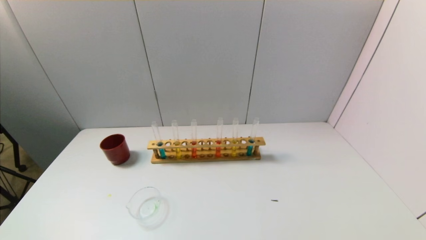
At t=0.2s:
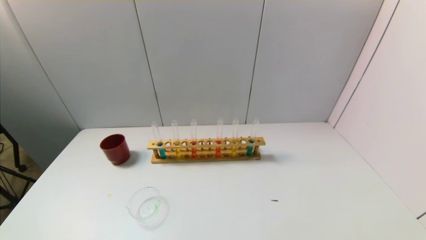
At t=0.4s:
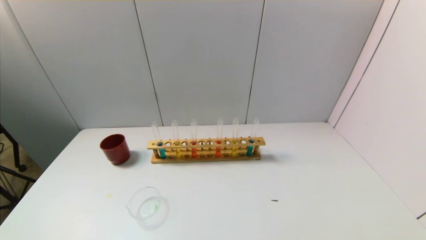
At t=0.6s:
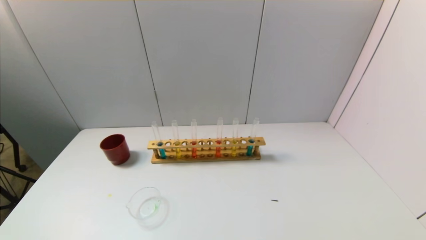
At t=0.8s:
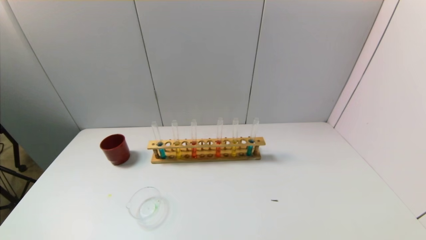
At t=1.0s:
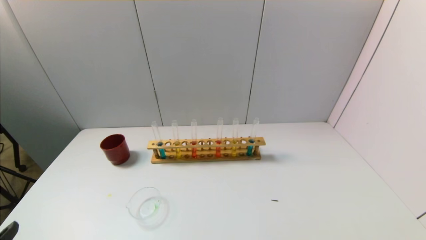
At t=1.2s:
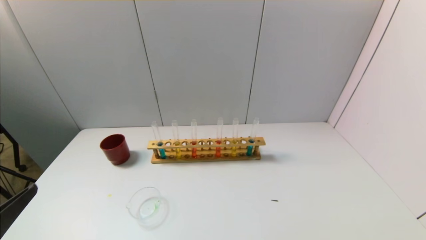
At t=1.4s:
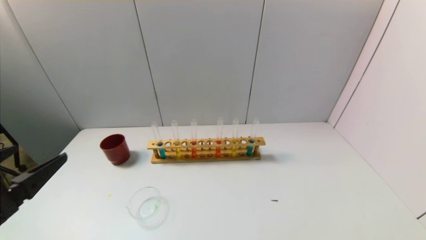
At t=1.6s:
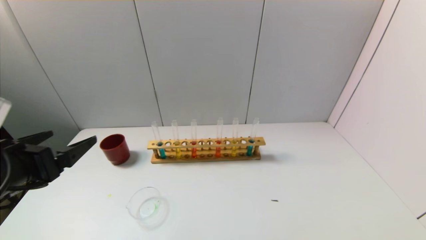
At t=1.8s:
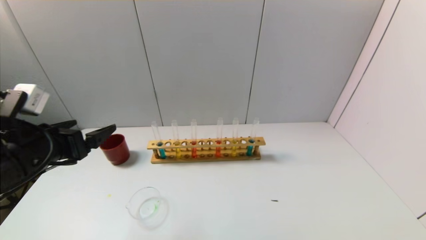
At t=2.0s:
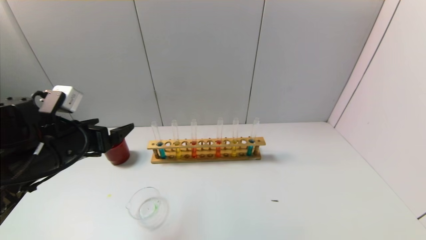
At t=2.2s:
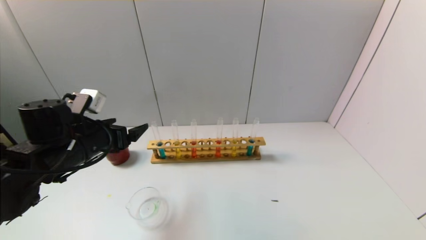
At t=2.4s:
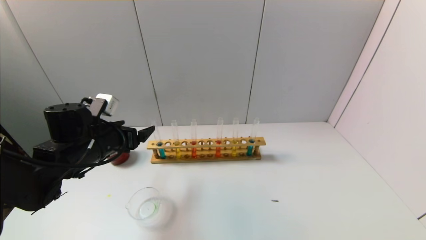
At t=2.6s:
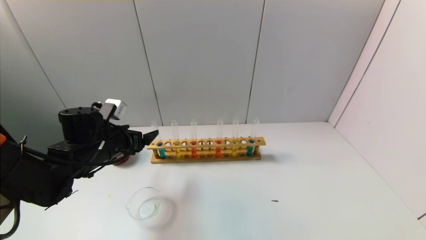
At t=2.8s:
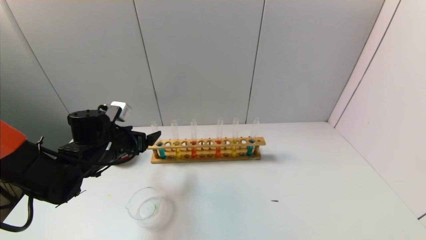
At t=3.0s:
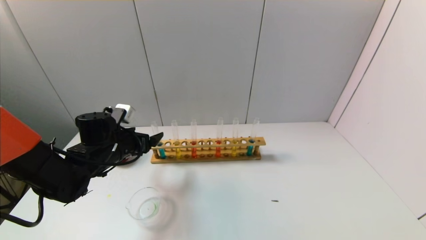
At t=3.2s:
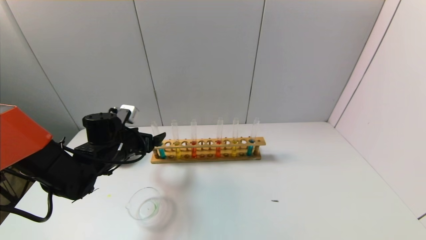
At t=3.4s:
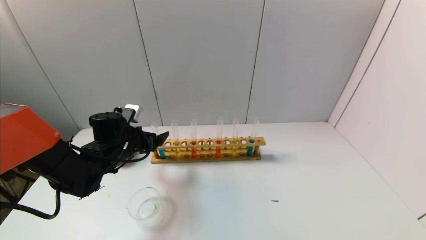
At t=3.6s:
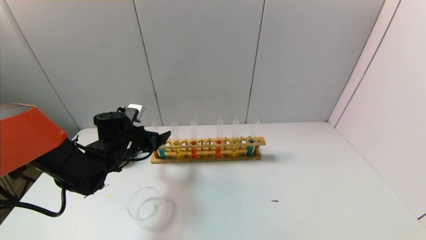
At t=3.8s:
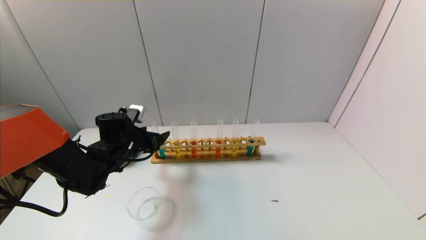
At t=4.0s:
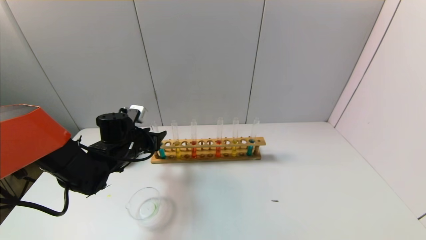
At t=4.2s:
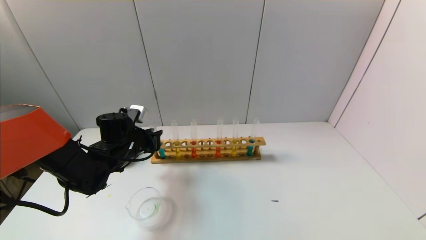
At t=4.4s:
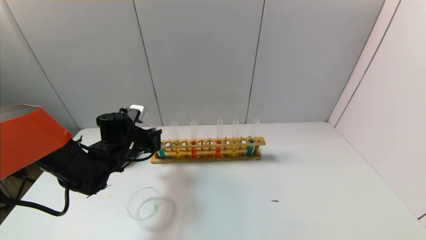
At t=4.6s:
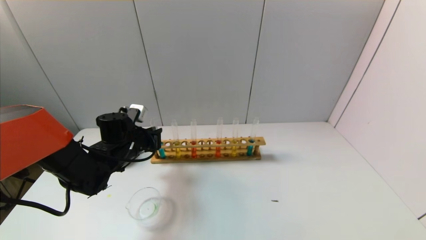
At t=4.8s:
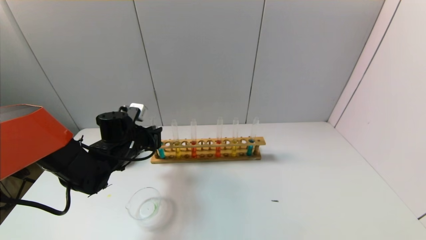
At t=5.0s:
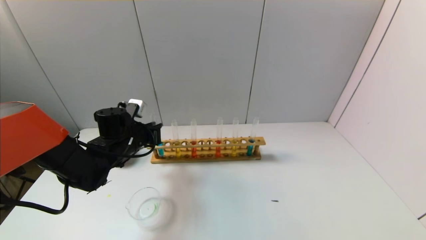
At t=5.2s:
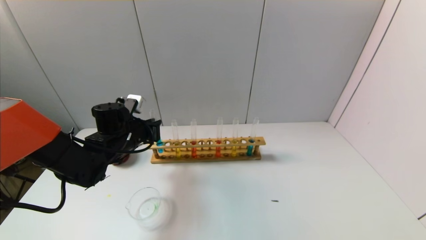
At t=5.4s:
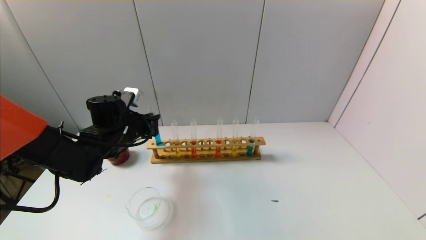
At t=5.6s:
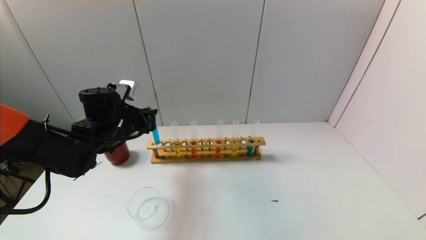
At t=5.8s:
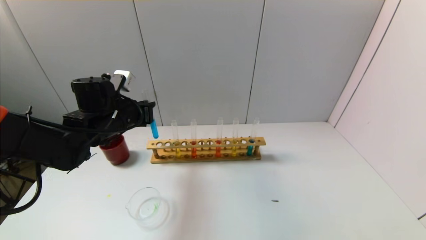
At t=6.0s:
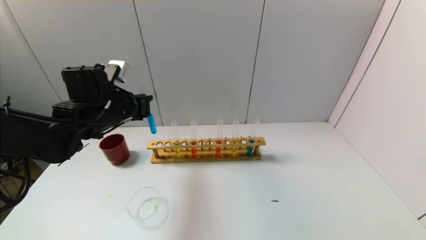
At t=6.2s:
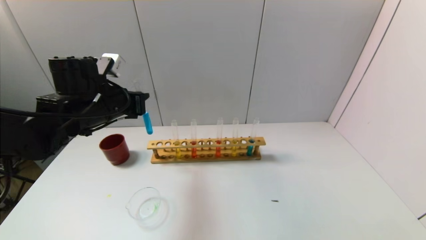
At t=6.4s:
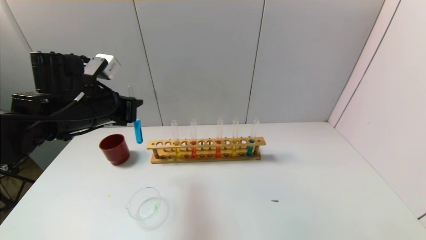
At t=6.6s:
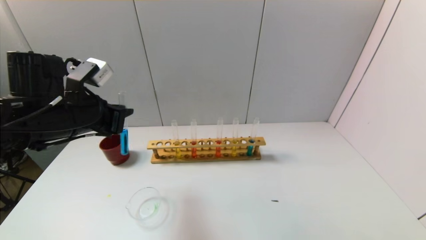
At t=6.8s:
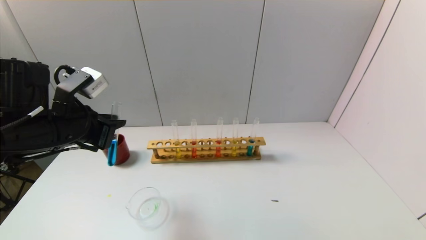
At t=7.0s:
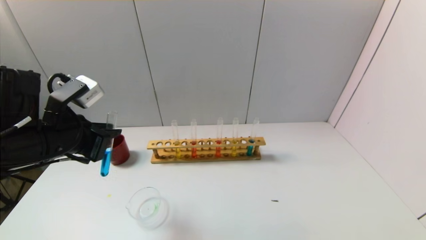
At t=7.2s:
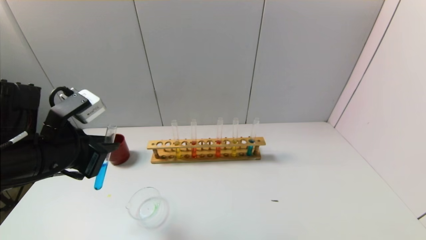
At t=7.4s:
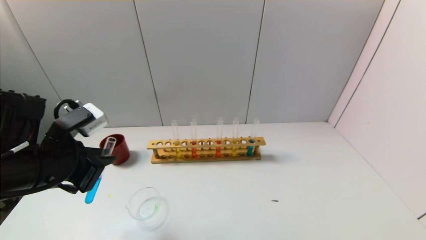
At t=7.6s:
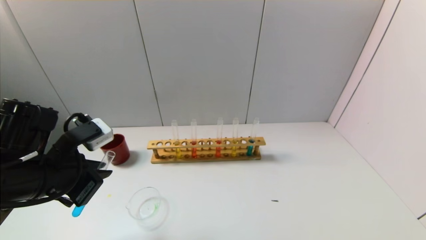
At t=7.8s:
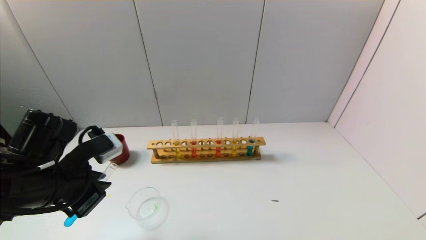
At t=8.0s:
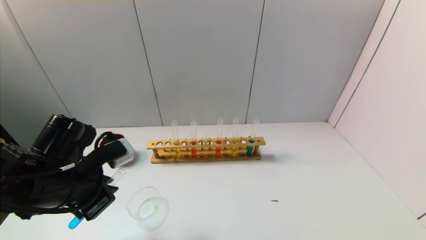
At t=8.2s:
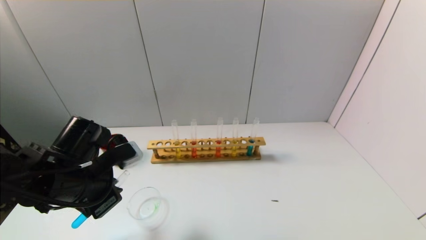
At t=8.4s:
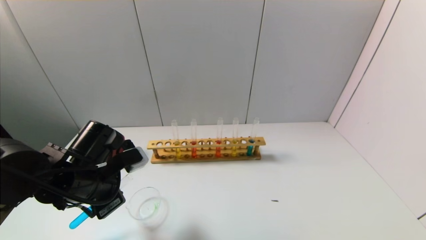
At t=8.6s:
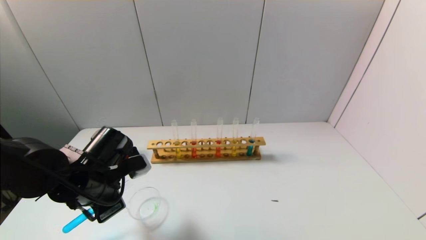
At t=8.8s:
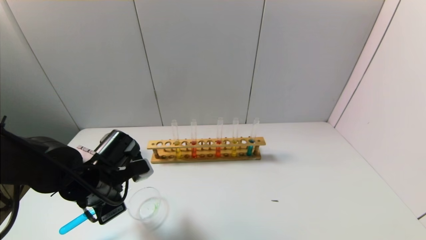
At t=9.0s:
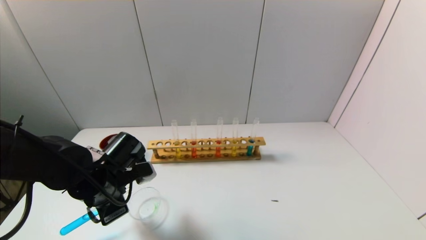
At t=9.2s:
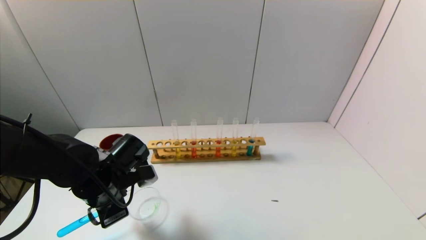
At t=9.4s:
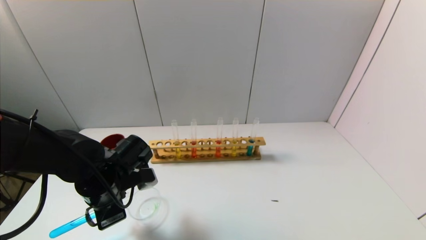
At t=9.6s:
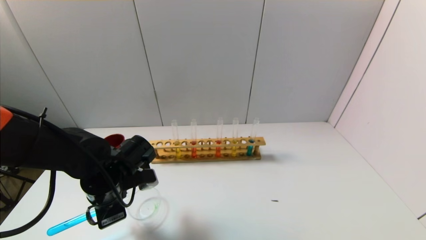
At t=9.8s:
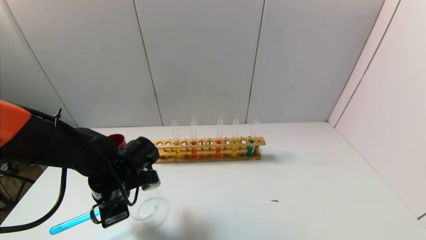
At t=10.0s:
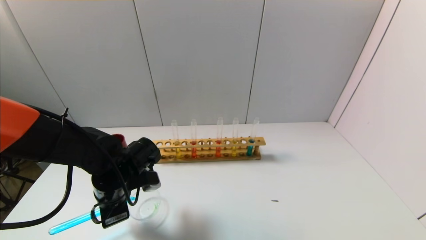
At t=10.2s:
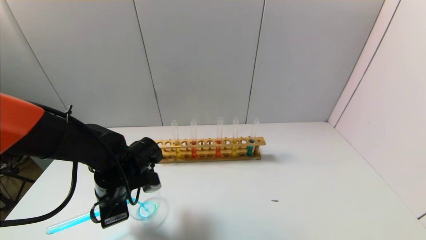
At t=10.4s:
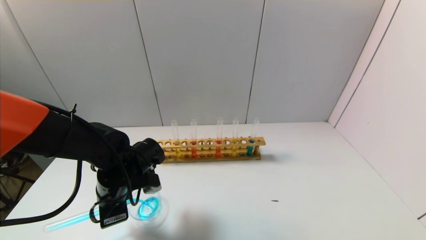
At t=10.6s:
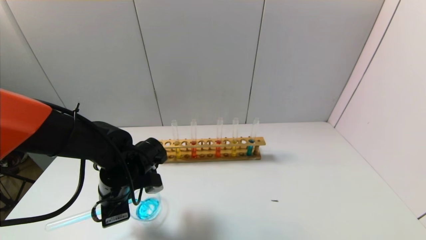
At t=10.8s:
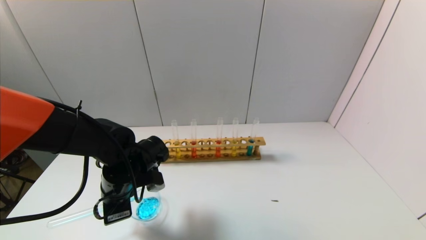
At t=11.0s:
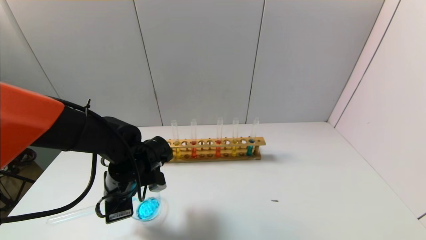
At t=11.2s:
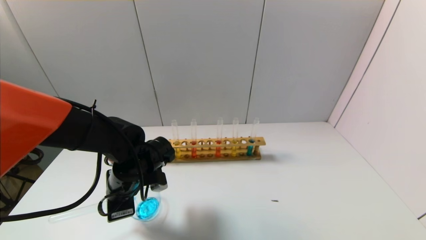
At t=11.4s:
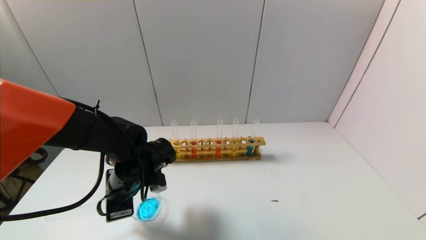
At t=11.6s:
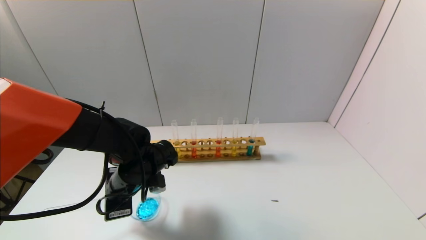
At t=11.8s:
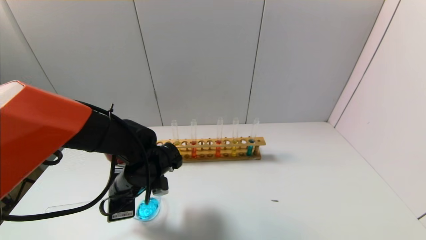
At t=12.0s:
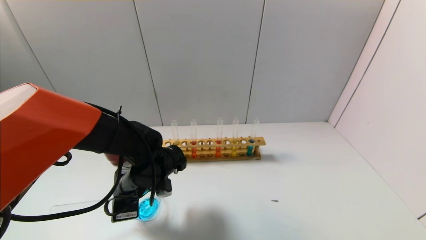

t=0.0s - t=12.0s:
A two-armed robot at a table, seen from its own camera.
Task of the whole recording: pick up the test tube with yellow pigment and the test tube with blue pigment by grippers and pour them into the beaker.
Step, t=0.0s - t=4.4s: Grasp the blue reagent with the left gripper.
t=0.0s - t=1.6s: The left gripper is displaced forward and upward by roughly 20 cm.
t=1.6s - t=3.0s: The left gripper moves forward and downward, approximately 20 cm.
t=3.0s - t=4.4s: The left gripper closes up.
t=4.4s - t=6.0s: The left gripper moves upward, approximately 10 cm.
t=6.0s - t=7.6s: The left gripper travels backward by about 15 cm.
t=7.6s - t=9.0s: The left gripper is displaced downward and forward by about 10 cm.
t=9.0s - t=10.4s: The grippers stay close to where they were, moving slightly.
t=10.4s - t=12.0s: The grippers stay close to where they were, moving slightly.

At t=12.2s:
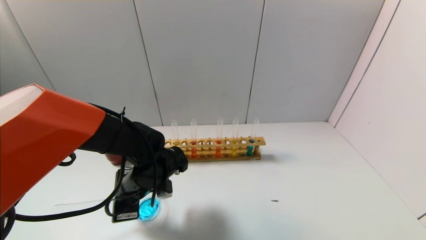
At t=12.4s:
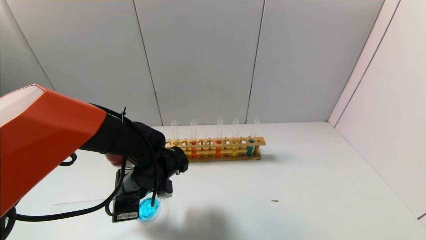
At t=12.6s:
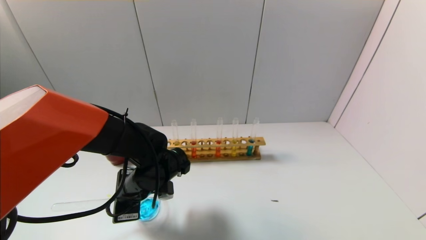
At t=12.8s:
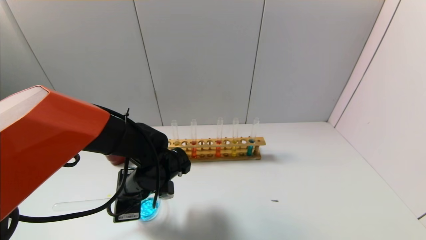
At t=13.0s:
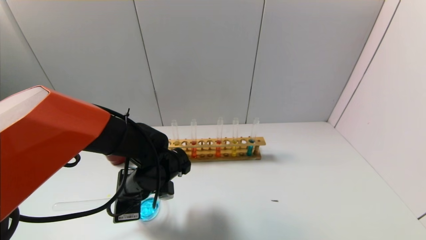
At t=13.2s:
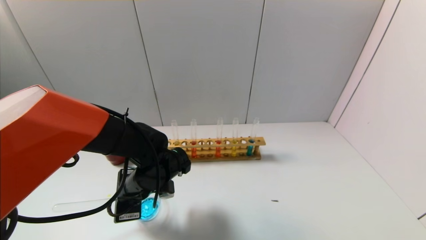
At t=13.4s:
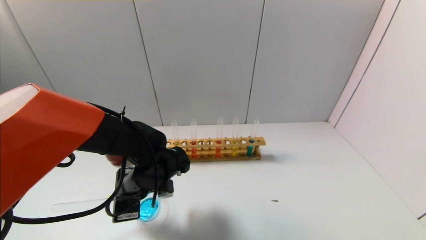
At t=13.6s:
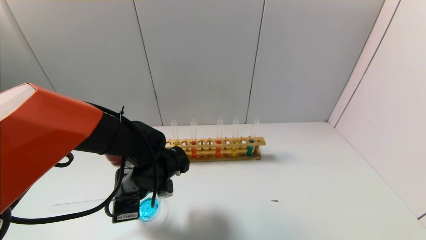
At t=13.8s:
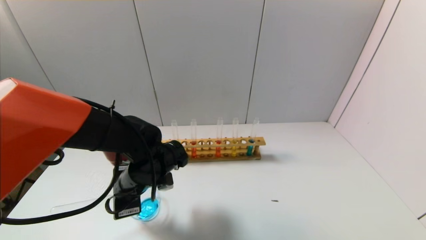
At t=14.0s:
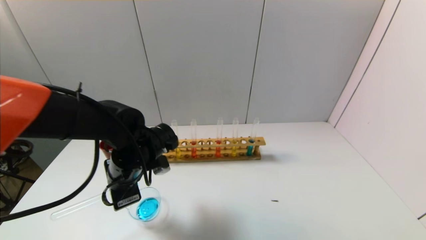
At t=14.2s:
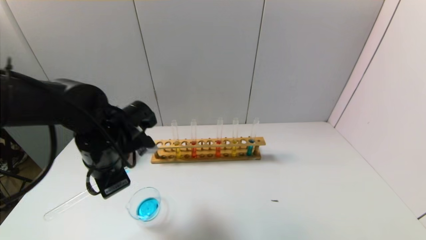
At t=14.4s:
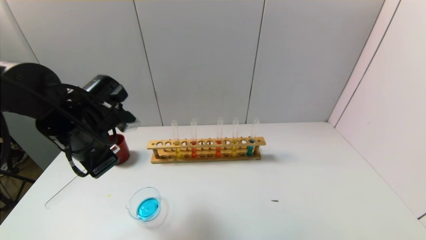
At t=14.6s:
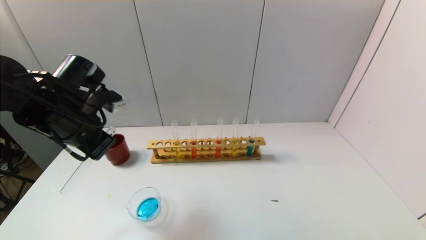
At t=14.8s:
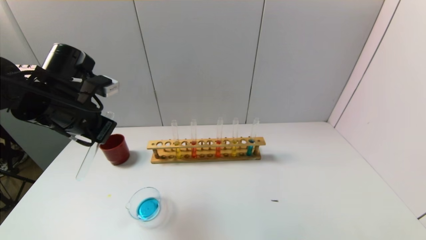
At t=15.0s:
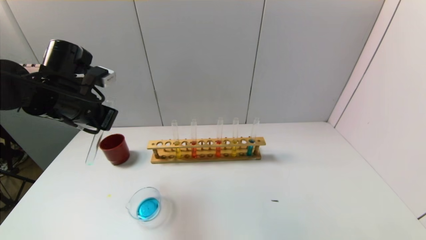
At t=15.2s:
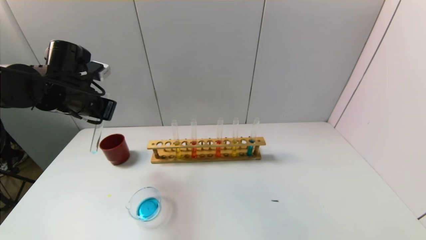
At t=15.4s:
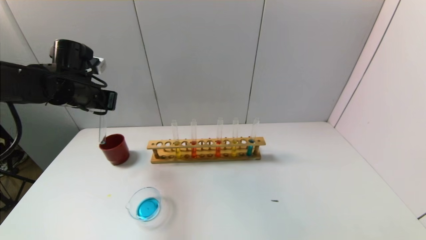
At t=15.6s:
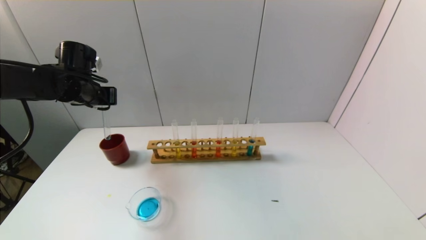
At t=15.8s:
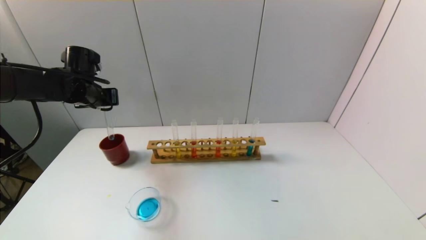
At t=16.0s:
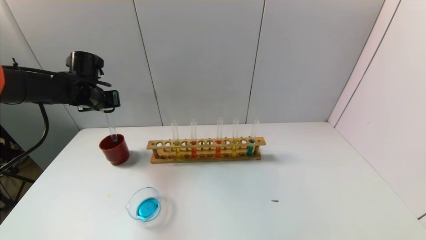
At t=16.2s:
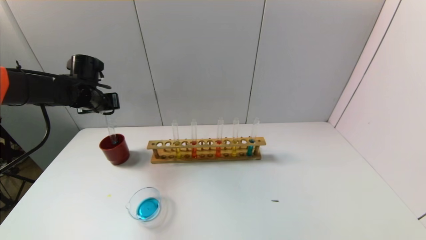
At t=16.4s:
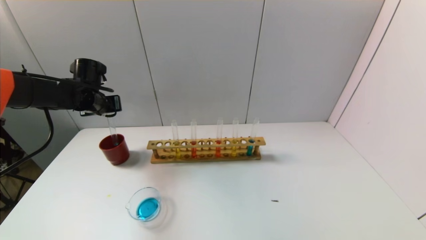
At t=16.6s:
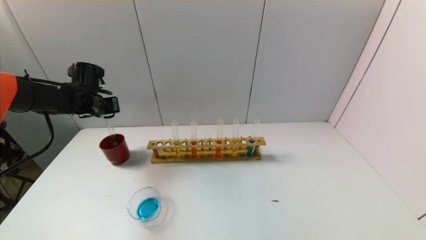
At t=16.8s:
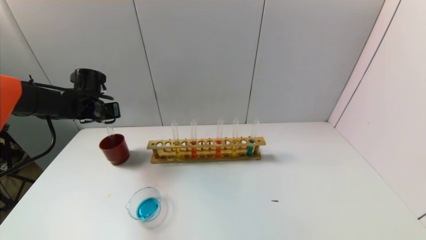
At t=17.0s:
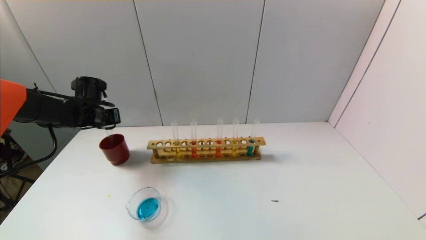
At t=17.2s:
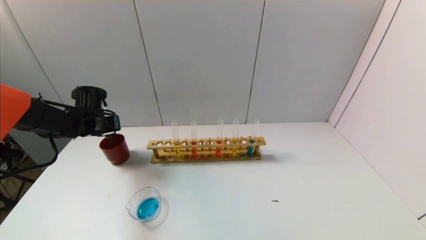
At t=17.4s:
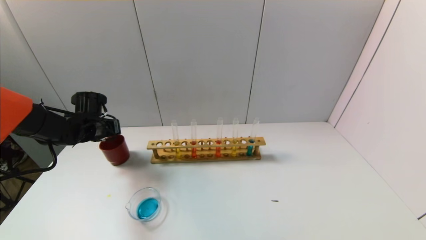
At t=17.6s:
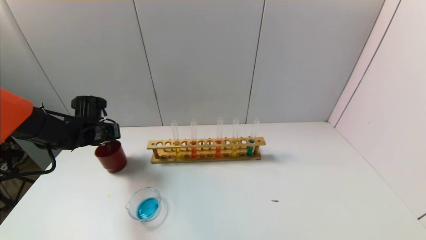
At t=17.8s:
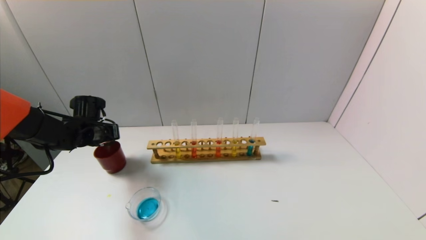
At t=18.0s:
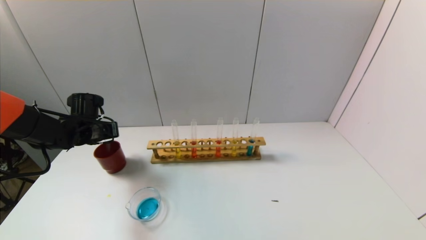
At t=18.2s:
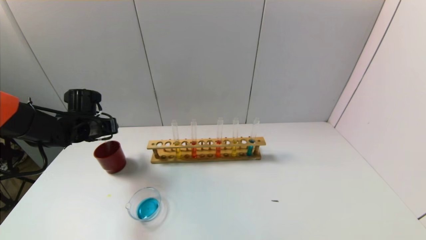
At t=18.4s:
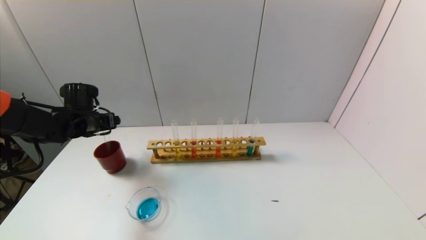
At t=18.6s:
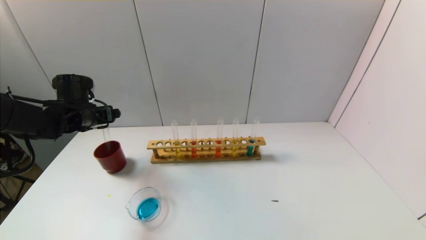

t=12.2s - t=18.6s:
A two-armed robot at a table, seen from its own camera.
Task of the whole recording: pick up the test tube with yellow pigment and the test tube with blue pigment by grippers and pour them into the beaker.
Step, t=12.2s - t=14.2s: Pour the blue reagent into the graduated cylinder with the left gripper.
Step, t=14.4s - t=18.0s: Place the test tube into the brown cup with the left gripper.
t=12.2s - t=13.8s: The grippers move only a little.
t=13.8s - t=15.4s: The left gripper travels to the left, upward and forward by roughly 25 cm.
t=15.4s - t=17.0s: The left gripper shifts approximately 10 cm downward and forward.
t=17.0s - t=18.6s: The left gripper opens its fingers.
